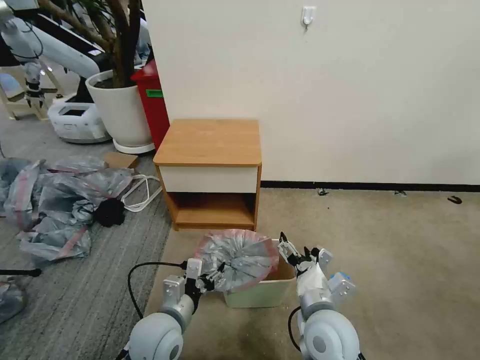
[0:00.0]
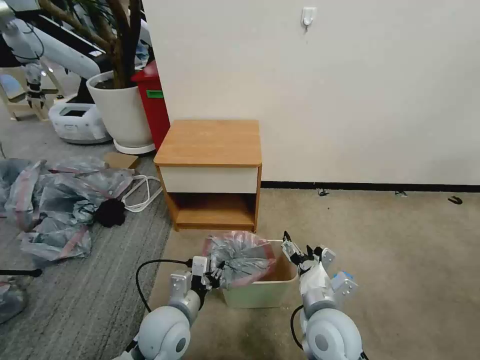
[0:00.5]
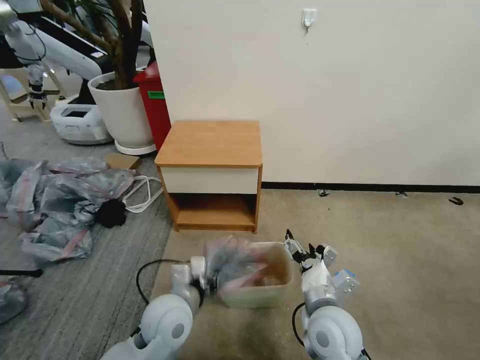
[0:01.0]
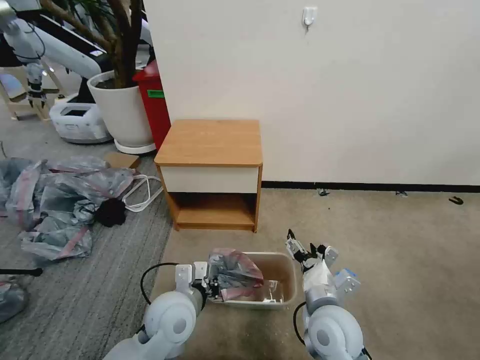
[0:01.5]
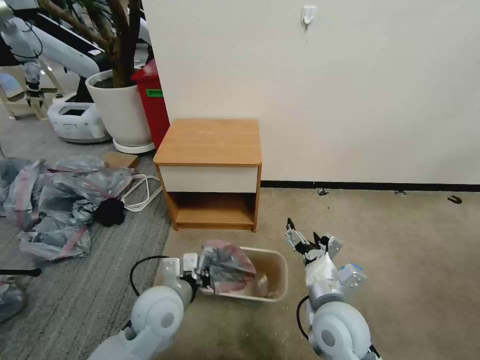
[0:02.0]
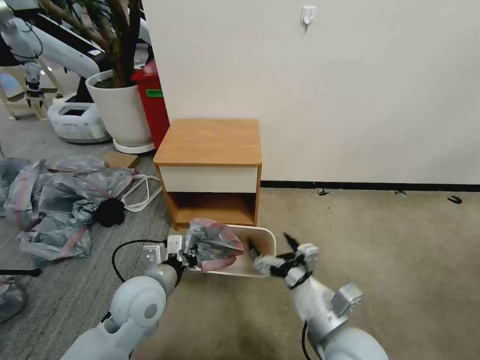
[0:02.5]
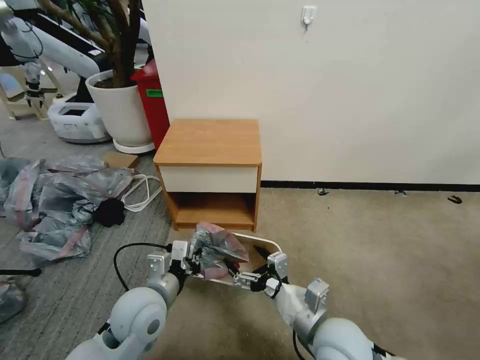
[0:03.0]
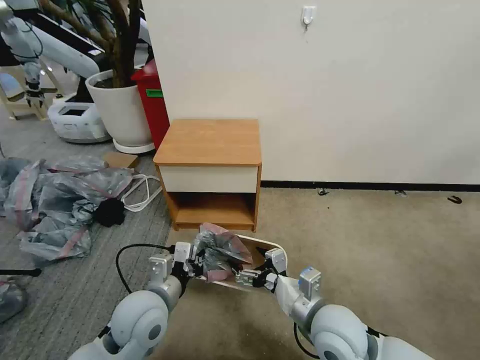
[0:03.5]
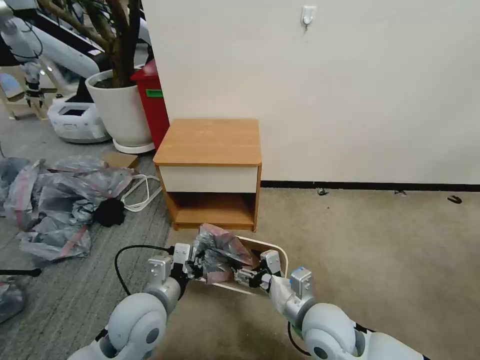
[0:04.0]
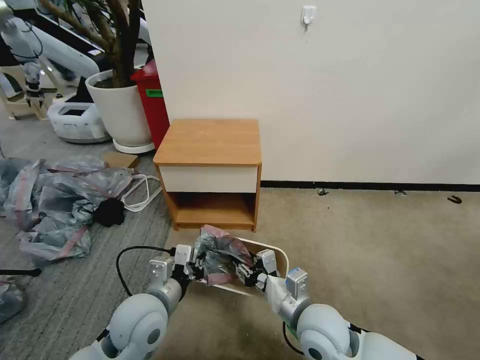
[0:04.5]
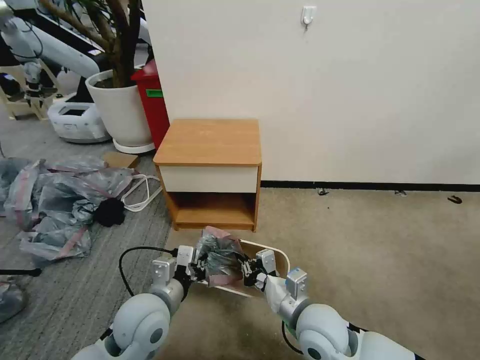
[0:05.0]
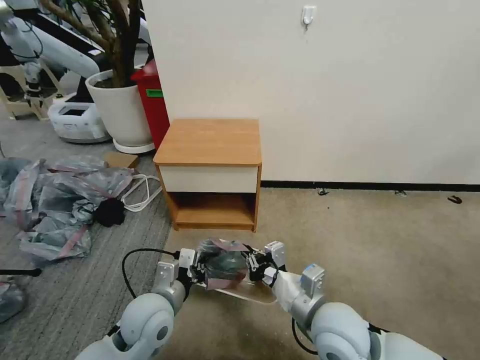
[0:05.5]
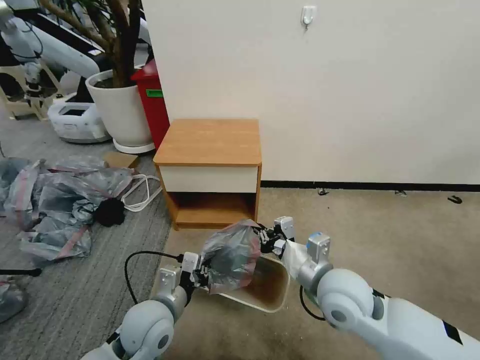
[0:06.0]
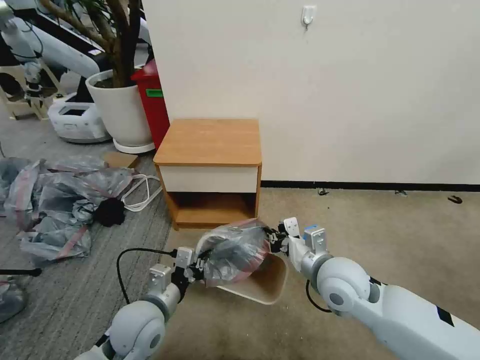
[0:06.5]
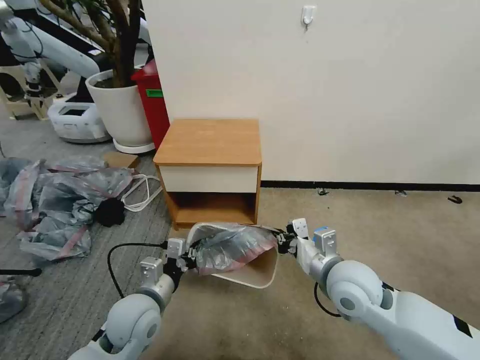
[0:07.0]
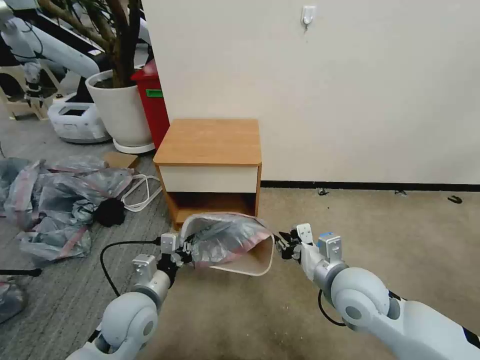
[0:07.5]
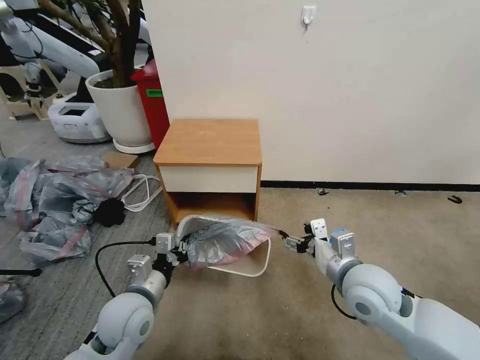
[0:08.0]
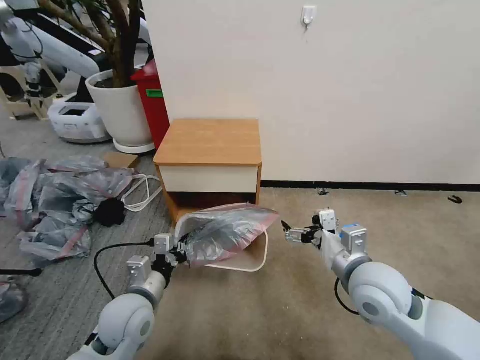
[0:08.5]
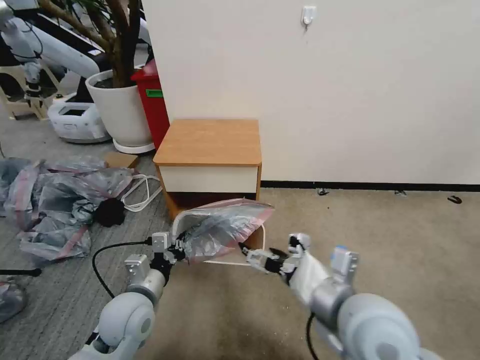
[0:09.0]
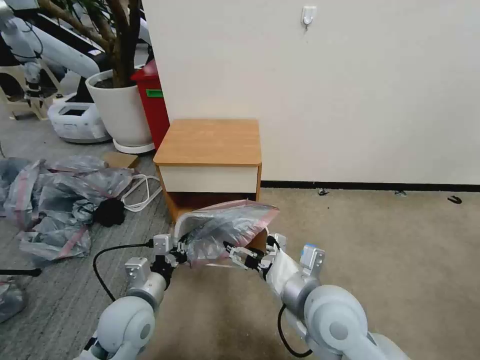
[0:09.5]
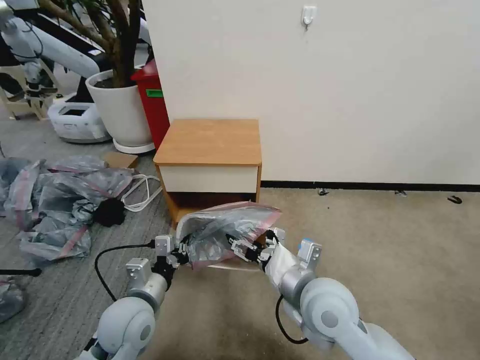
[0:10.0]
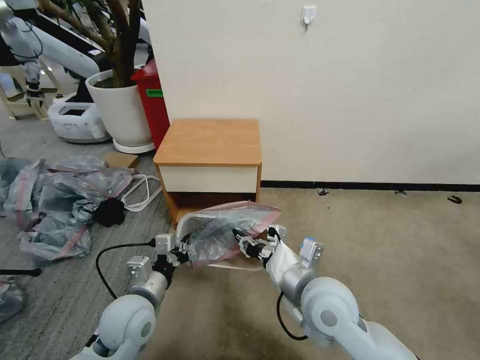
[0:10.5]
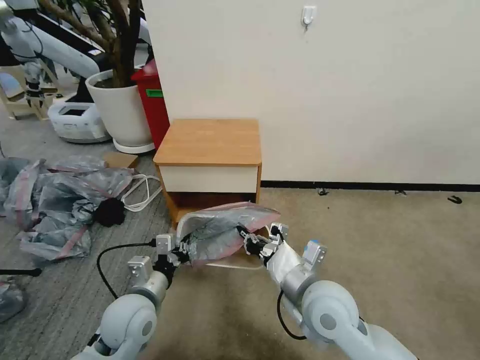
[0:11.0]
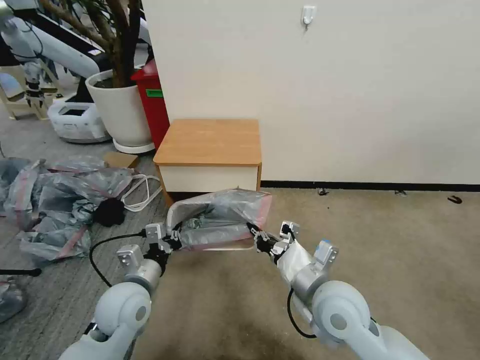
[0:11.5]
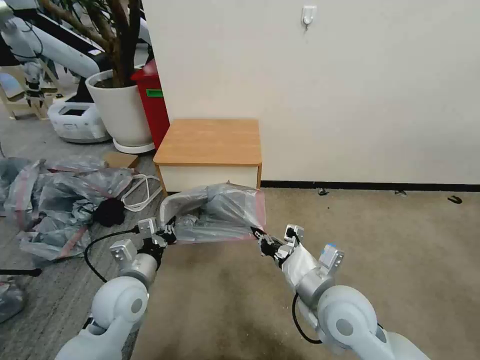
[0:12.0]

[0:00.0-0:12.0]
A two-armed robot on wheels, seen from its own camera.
Task of the whole recording: Pick up the garbage bag from the table and place it over the trash can.
0:00.0 to 0:02.0: The left gripper ends up some 5 cm from where it was, and closes up.
0:04.0 to 0:06.0: The right gripper shifts approximately 5 cm upward, and closes up.
0:06.0 to 0:08.0: The right gripper goes about 5 cm to the right, and opens up.
0:08.0 to 0:10.0: The right gripper is displaced to the left by some 10 cm.
0:10.0 to 0:12.0: The right gripper closes.

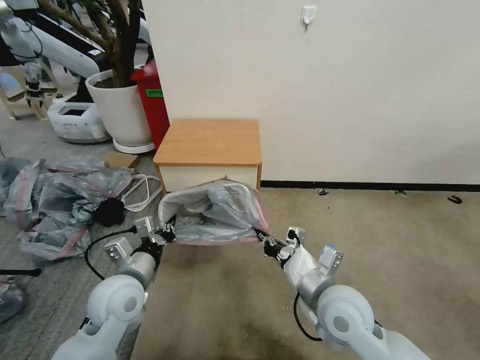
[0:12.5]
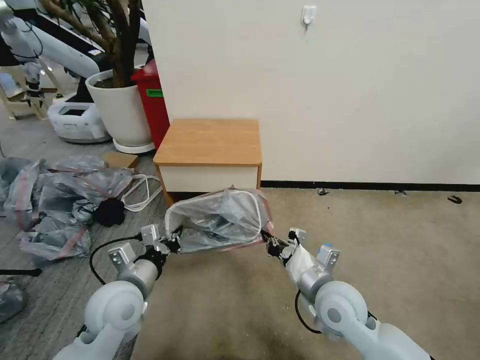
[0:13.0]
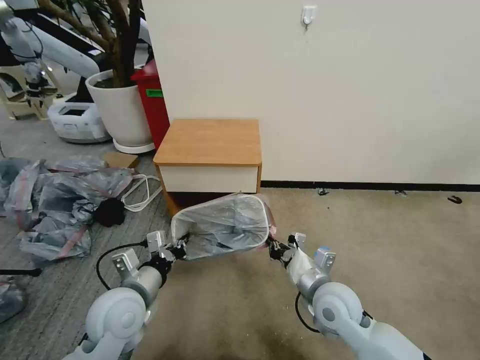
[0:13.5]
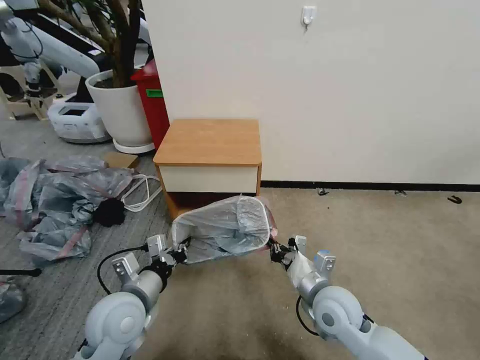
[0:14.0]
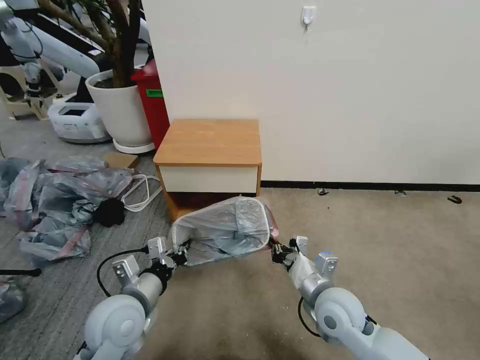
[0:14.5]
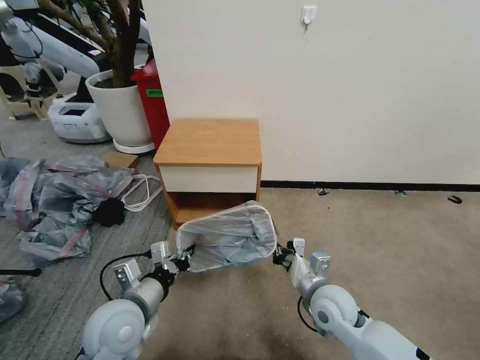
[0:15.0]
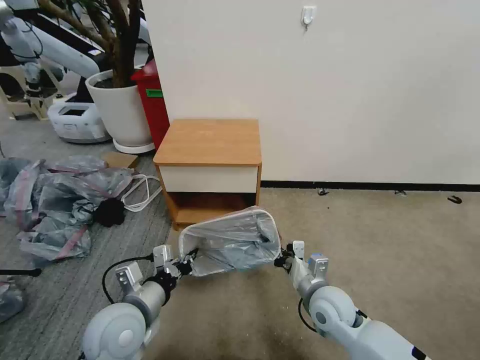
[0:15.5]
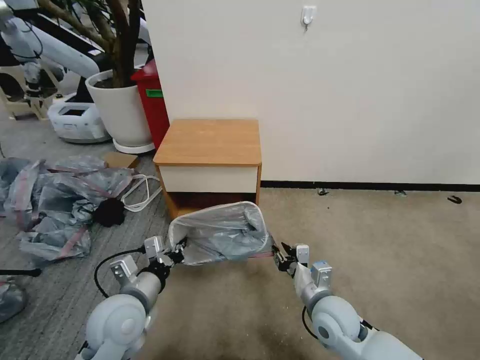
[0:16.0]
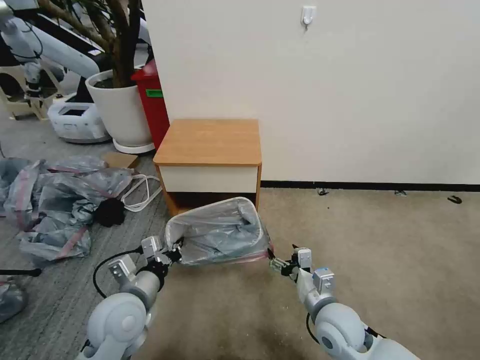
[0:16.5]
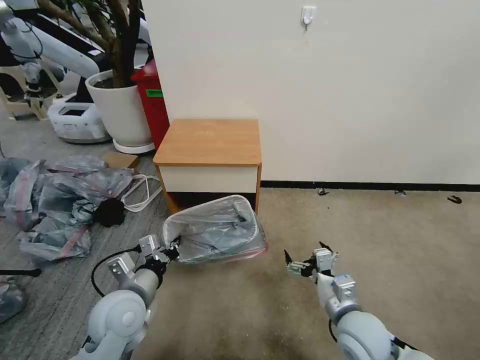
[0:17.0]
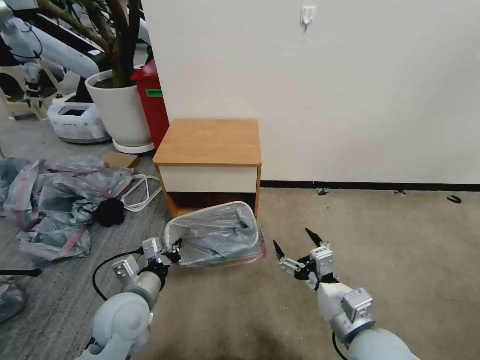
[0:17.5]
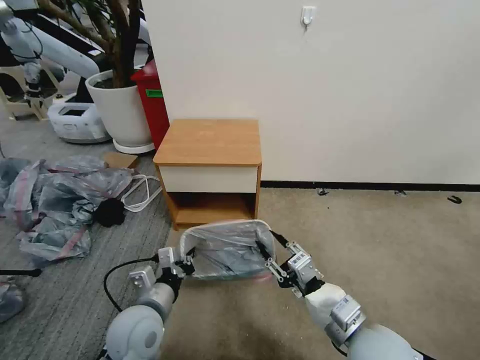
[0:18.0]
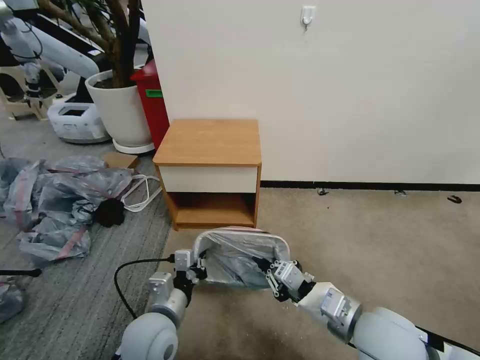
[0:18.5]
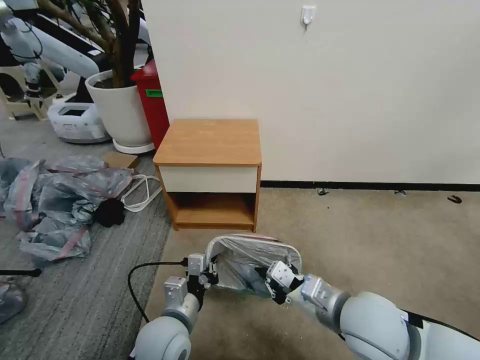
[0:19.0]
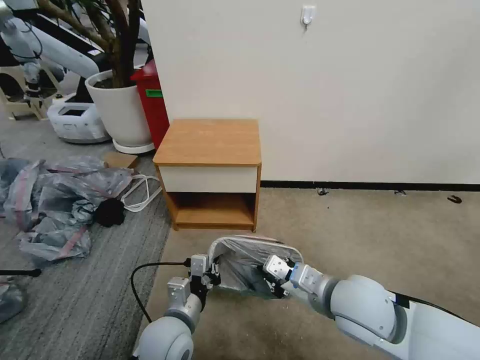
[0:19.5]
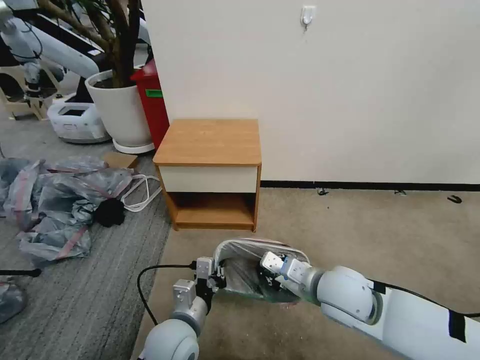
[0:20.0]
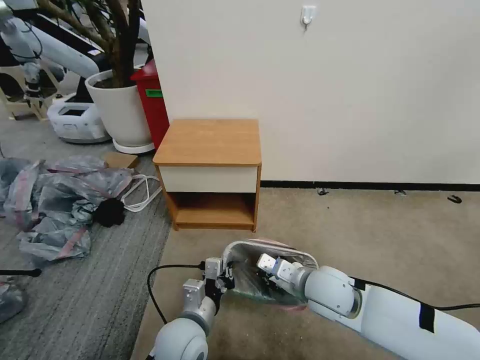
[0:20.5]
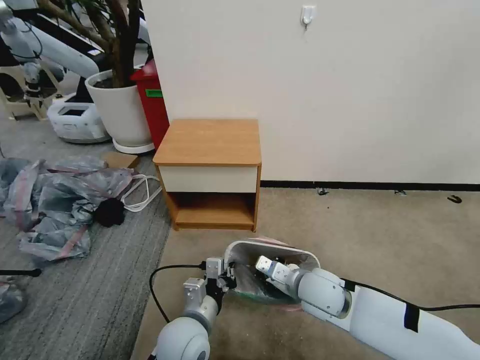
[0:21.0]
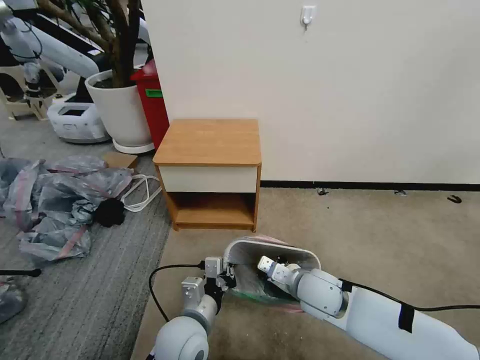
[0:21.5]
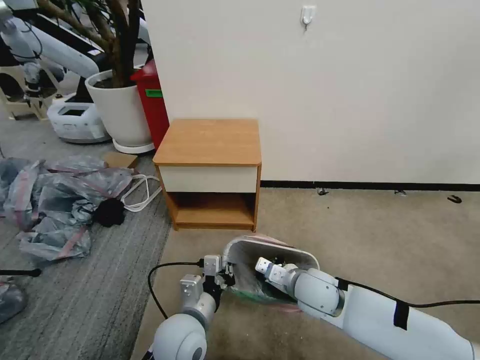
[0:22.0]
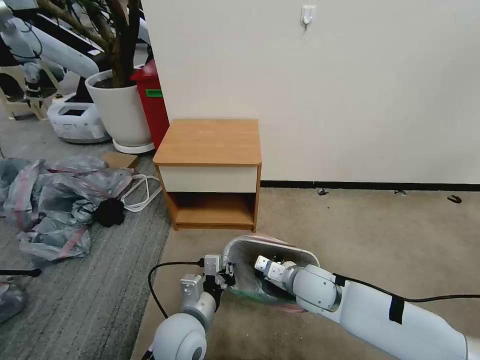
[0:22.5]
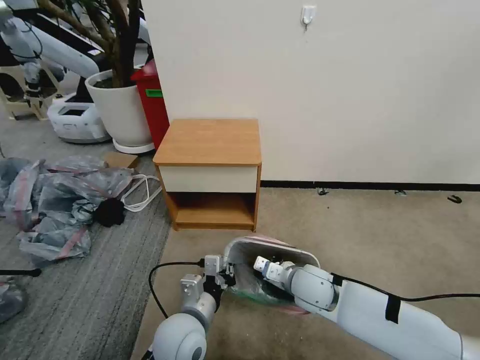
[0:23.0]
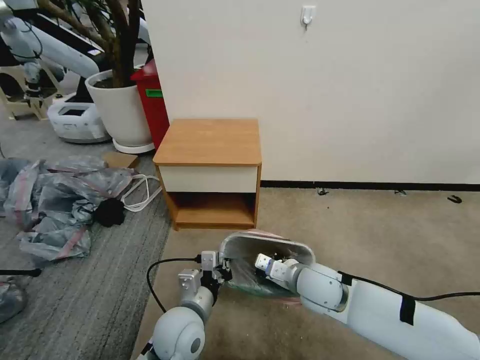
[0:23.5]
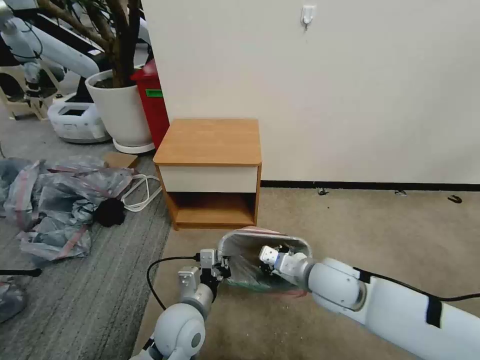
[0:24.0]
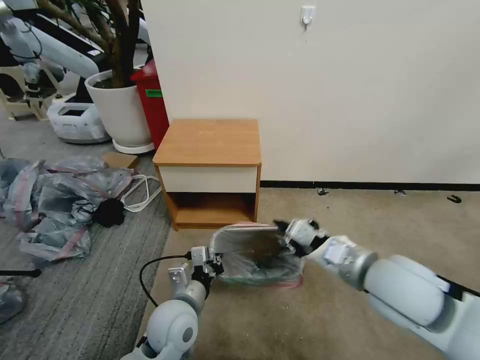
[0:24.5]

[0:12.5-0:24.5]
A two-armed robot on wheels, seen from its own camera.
Task of the whole recording: Pick up the garbage bag from the table and place it over the trash can.
0:12.5 to 0:14.5: The right gripper goes roughly 5 cm downward.
0:14.5 to 0:16.5: The right gripper opens its fingers.
0:16.5 to 0:18.5: The right gripper heads upward, covering approximately 15 cm, and closes up, while the left gripper goes some 5 cm to the right.
0:18.5 to 0:20.5: The right gripper travels forward and downward by roughly 10 cm. The left gripper shifts about 5 cm to the right.
0:20.5 to 0:22.5: The right gripper shifts by approximately 5 cm.
0:22.5 to 0:24.5: The right gripper shifts roughly 20 cm upward and to the right.

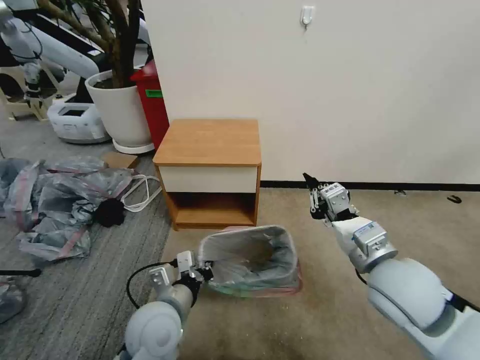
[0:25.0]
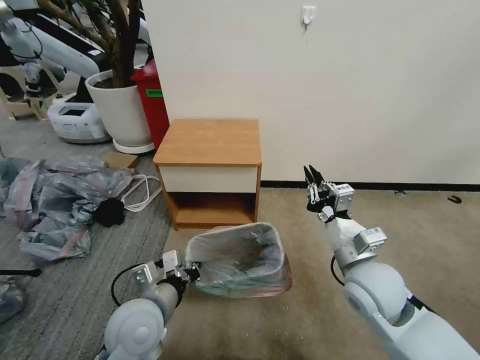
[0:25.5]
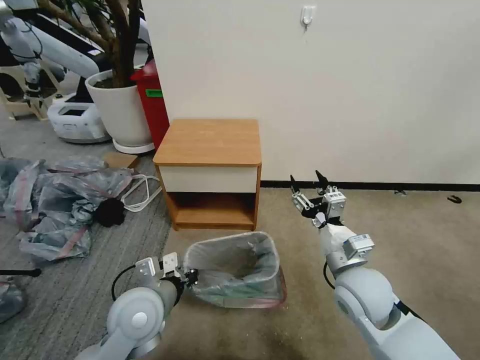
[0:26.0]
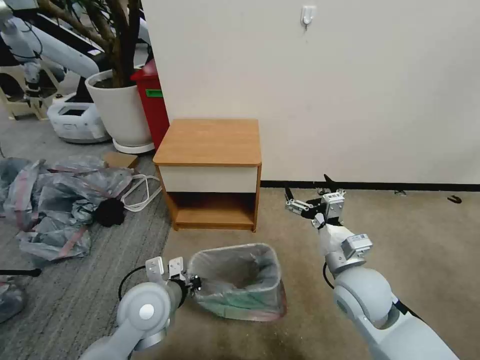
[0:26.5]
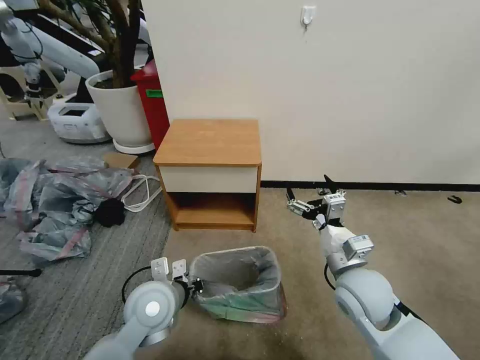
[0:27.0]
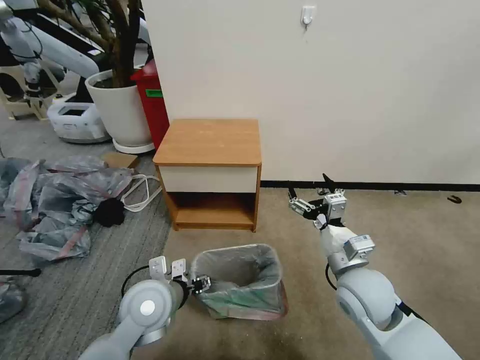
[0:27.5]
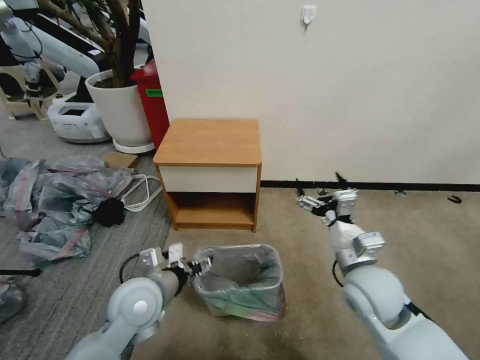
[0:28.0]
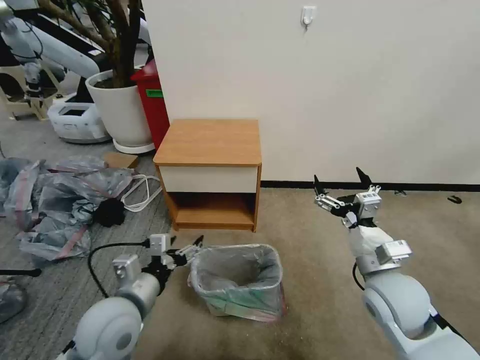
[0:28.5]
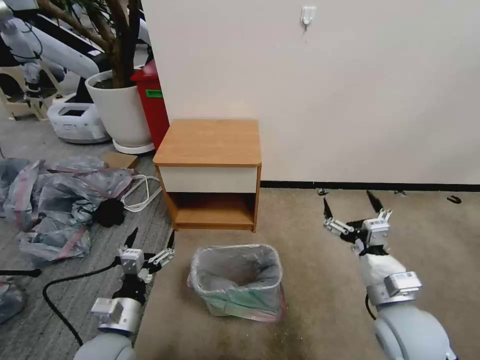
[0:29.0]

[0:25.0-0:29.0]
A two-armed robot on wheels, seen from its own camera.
Task of the whole recording: Pick up the garbage bag from the table and place it over the trash can.
0:25.0 to 0:27.0: The right gripper moves downward, roughly 10 cm, and opens.
0:27.0 to 0:29.0: The right gripper travels backward and to the right by roughly 10 cm, while the left gripper is displaced backward and to the left by roughly 10 cm, and opens up.
